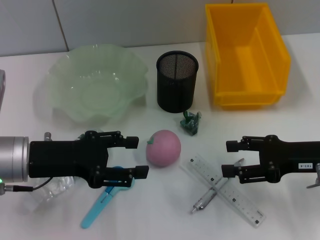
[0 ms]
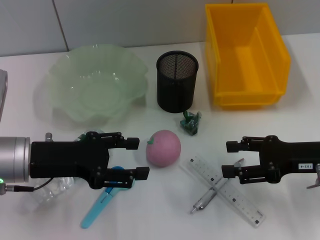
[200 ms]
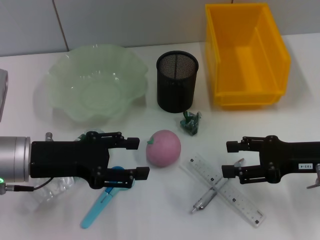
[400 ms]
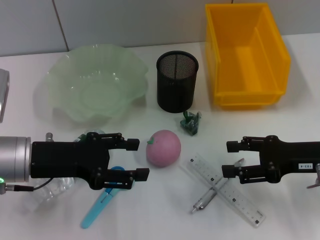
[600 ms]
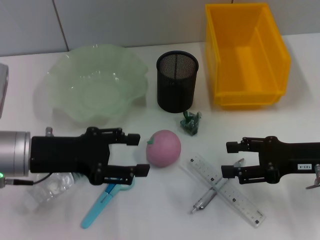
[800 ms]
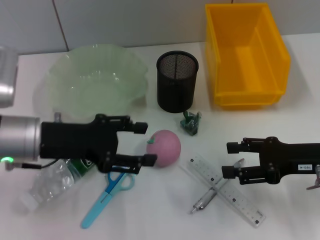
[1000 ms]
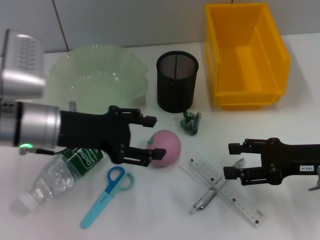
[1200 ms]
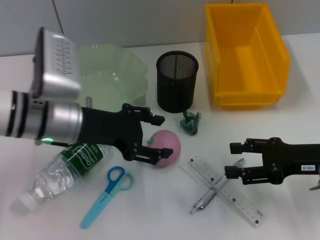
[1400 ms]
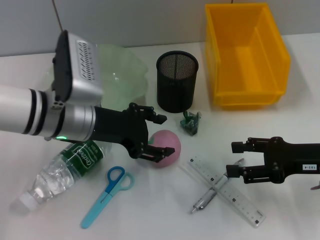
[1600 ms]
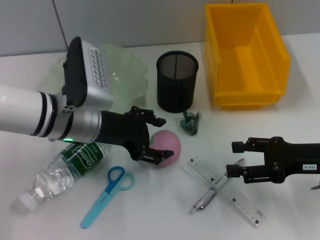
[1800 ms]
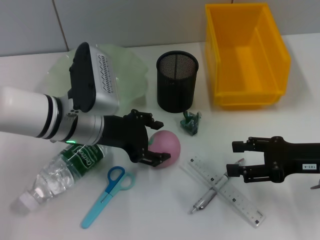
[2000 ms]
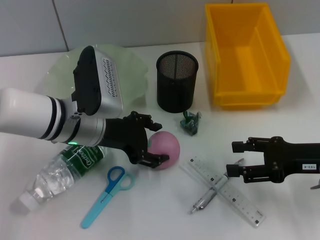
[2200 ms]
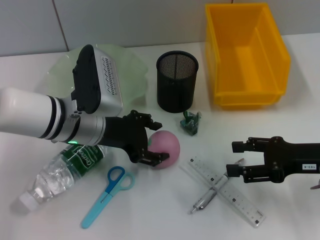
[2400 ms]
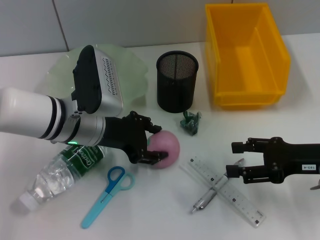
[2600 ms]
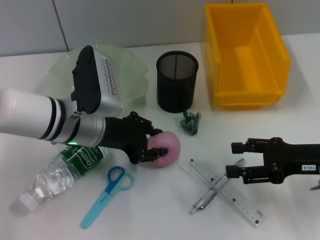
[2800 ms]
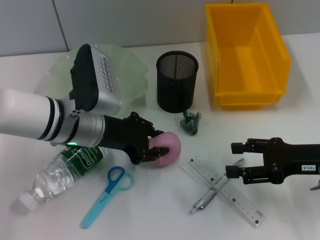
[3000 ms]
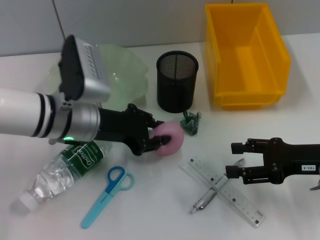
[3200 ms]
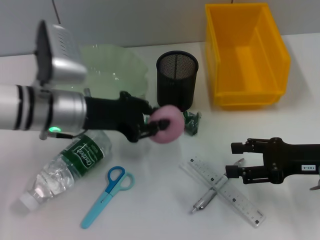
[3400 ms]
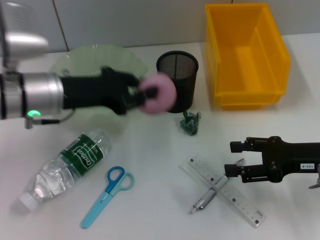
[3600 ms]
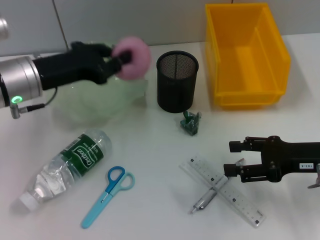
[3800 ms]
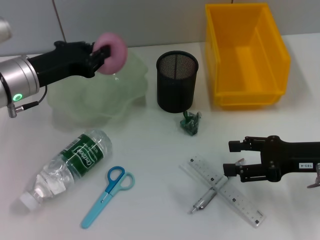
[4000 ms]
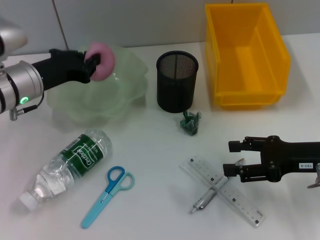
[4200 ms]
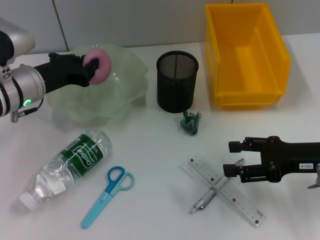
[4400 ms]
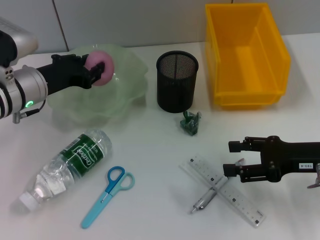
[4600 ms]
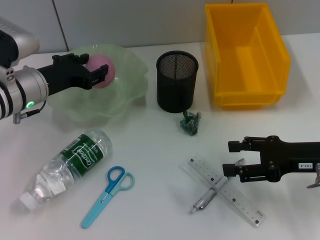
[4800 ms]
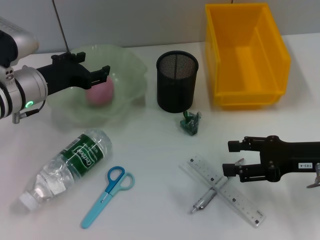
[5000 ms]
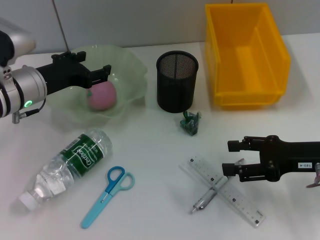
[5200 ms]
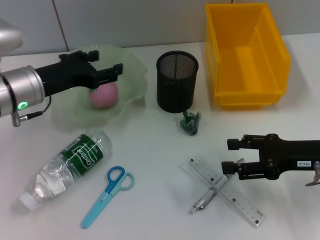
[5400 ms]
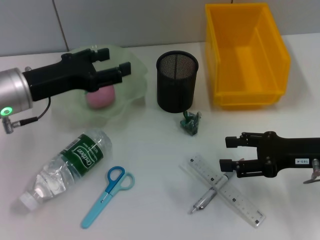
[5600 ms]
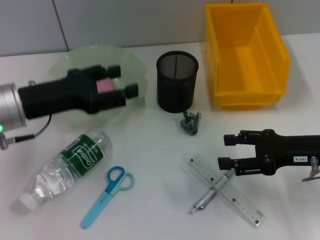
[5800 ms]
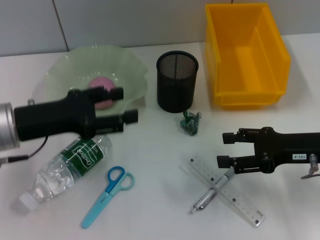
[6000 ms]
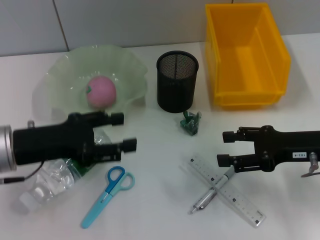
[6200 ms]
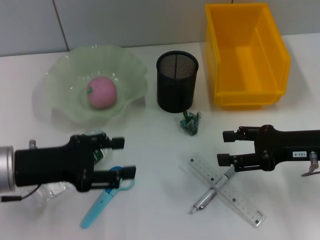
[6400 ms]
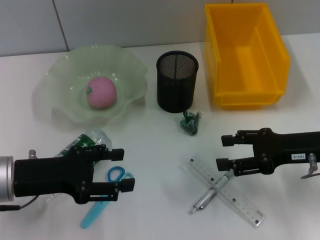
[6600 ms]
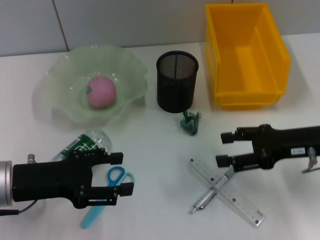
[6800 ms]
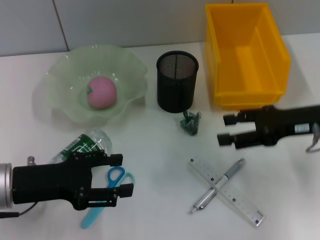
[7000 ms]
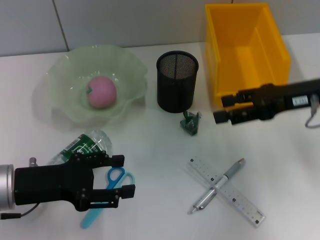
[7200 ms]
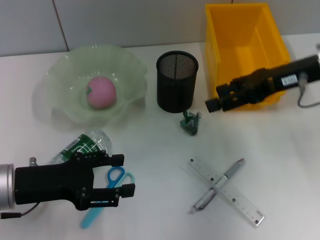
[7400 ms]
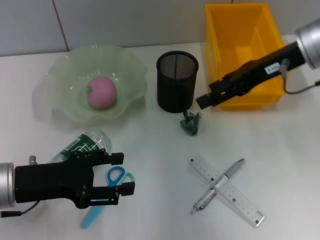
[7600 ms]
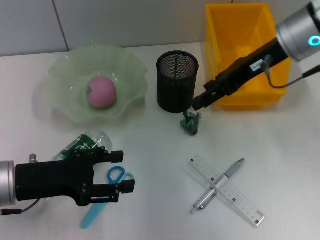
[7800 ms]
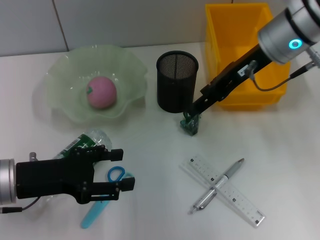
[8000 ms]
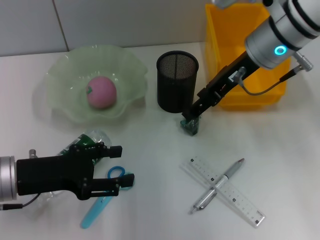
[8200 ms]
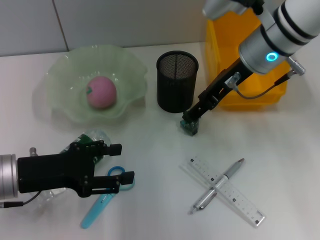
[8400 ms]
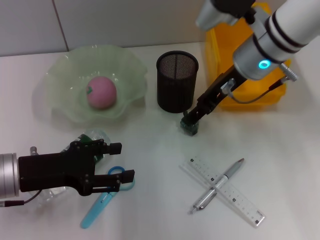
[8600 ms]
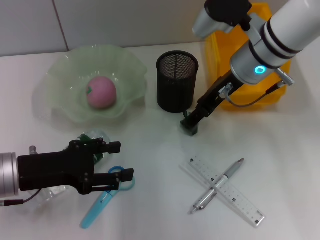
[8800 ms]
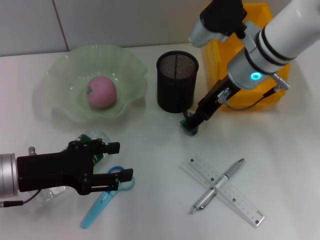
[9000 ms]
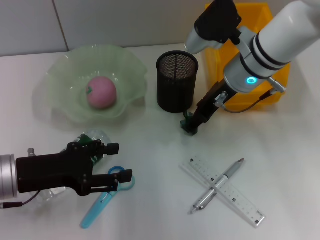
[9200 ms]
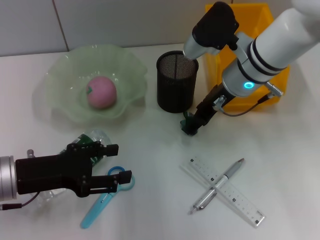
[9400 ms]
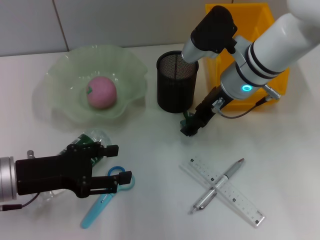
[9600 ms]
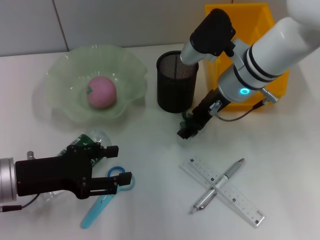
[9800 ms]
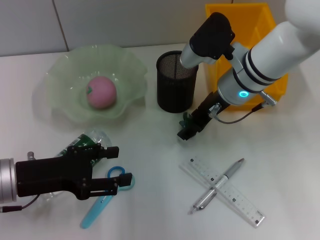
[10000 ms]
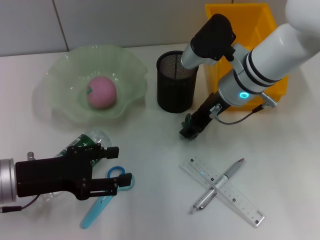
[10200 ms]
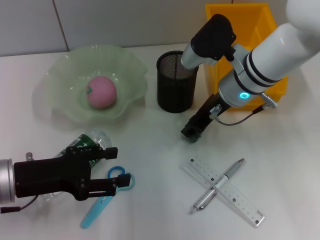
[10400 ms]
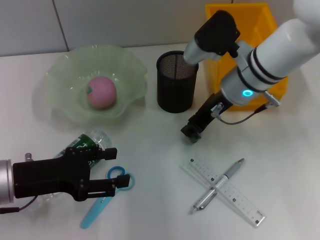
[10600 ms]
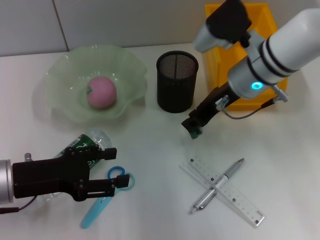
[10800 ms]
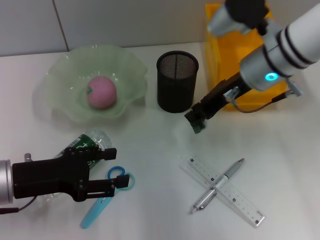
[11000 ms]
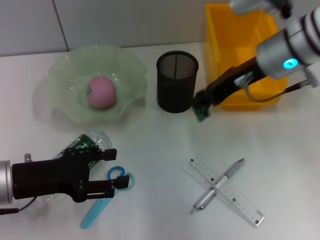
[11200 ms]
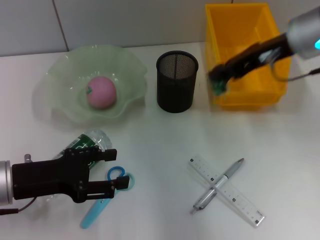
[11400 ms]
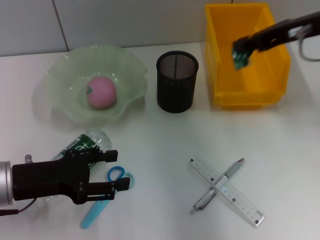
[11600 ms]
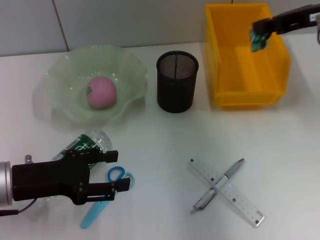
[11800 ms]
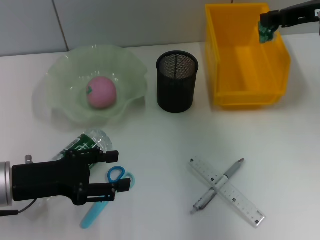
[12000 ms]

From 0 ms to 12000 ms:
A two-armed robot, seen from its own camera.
Step, from 0 ms to 2800 ms: Grab the peach with the left hand.
Step, from 3000 ms to 5000 ms: Place the peach into the fruit bowl with the left hand.
Step, from 5200 ms to 10400 ms: Grab the plastic with the right hand.
From 0 ms to 1600 ms: The left gripper moves to the right and forward, approximately 10 cm.
From 1600 ms to 3000 ms: The left gripper closes up.
From 3000 ms to 4400 ms: The left gripper is displaced to the left by some 10 cm, and closes up.
From 4400 ms to 6000 ms: The left gripper travels backward by about 10 cm, and opens its fingers.
From 6000 ms to 7600 ms: The right gripper is displaced upward, forward and to the left by roughly 20 cm. The left gripper shifts by approximately 5 cm.
From 7600 ms to 9000 ms: The right gripper shifts approximately 10 cm to the left and downward.
From 9000 ms to 10400 ms: The grippers make only small movements.
From 10400 ms to 12000 ms: The right gripper goes some 20 cm to the right and upward, and closes up.

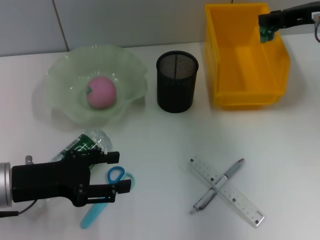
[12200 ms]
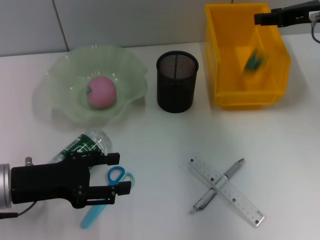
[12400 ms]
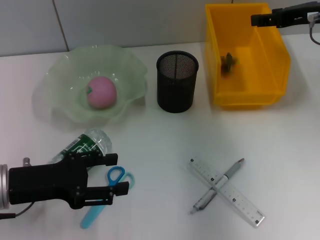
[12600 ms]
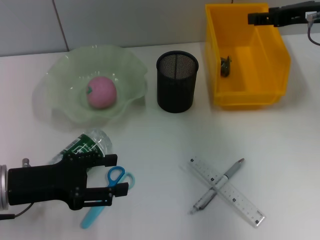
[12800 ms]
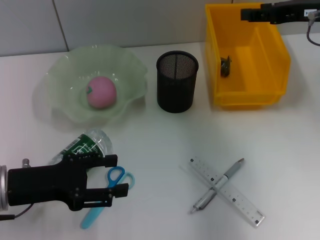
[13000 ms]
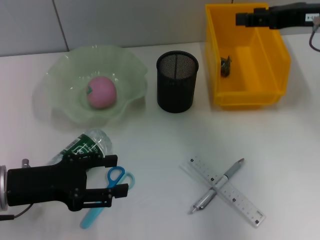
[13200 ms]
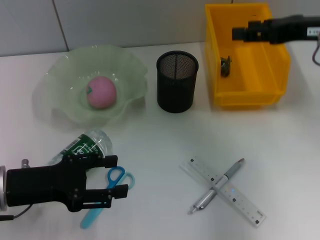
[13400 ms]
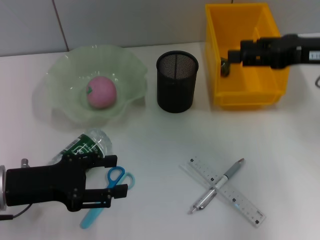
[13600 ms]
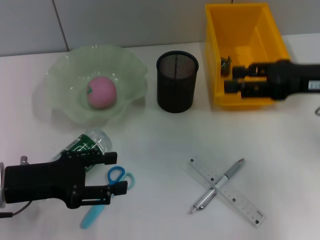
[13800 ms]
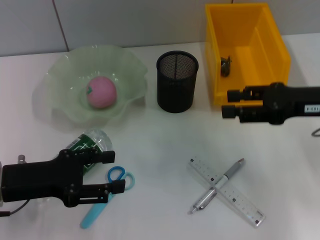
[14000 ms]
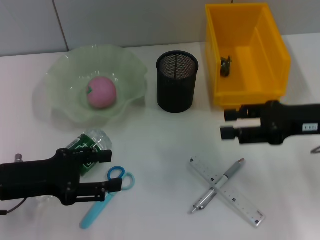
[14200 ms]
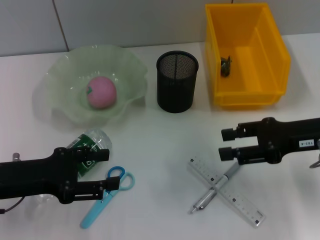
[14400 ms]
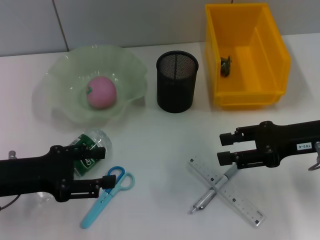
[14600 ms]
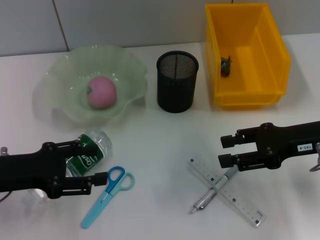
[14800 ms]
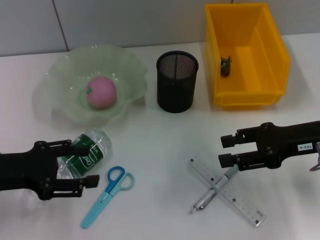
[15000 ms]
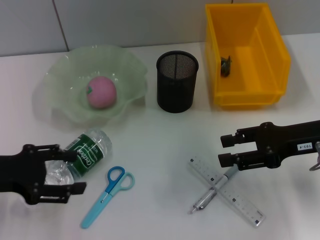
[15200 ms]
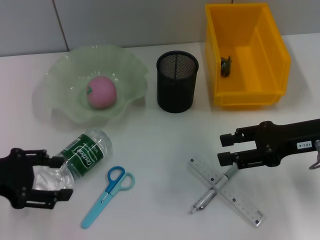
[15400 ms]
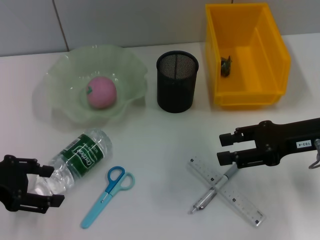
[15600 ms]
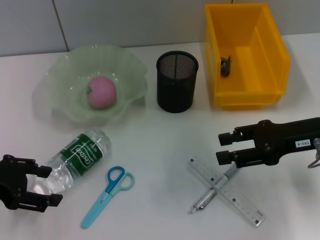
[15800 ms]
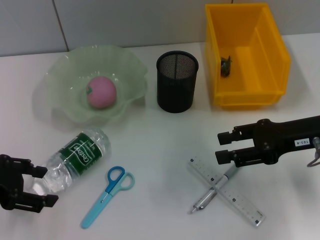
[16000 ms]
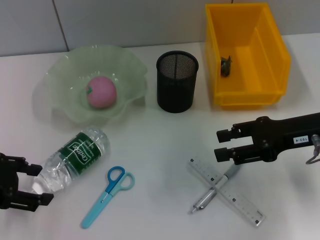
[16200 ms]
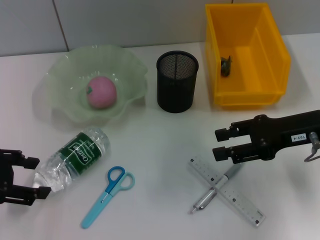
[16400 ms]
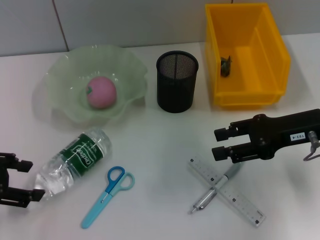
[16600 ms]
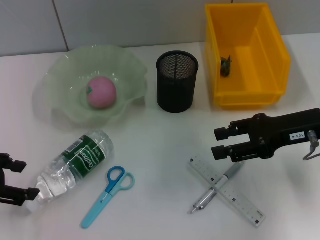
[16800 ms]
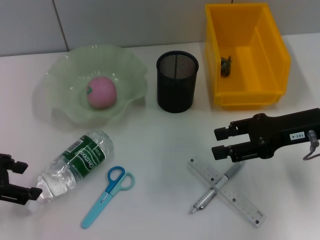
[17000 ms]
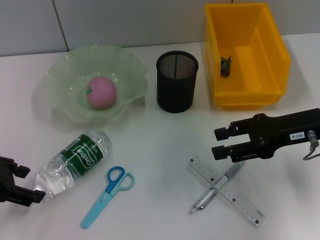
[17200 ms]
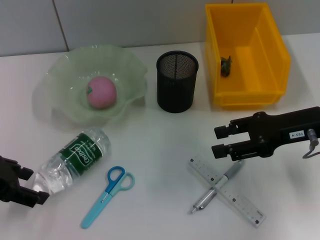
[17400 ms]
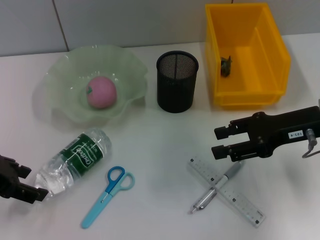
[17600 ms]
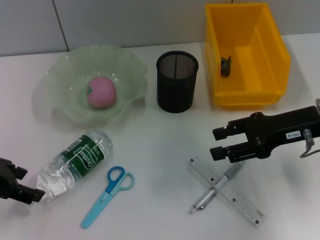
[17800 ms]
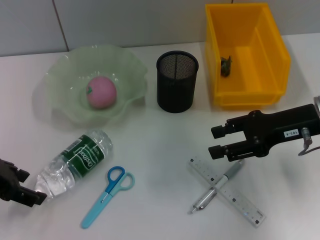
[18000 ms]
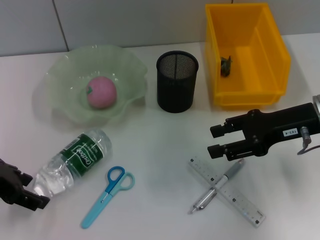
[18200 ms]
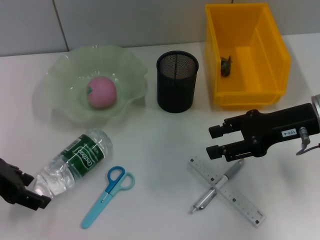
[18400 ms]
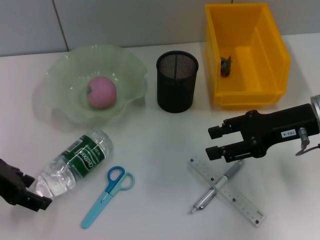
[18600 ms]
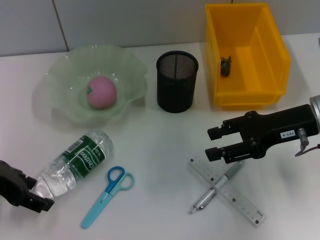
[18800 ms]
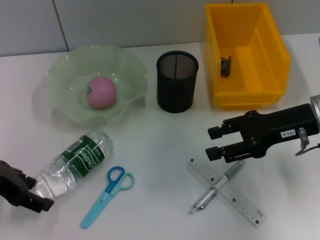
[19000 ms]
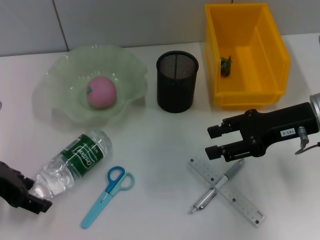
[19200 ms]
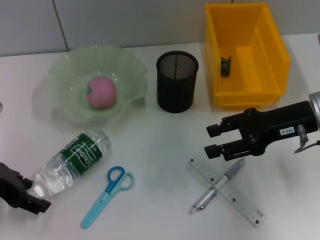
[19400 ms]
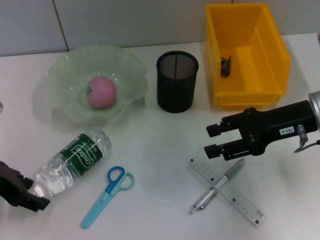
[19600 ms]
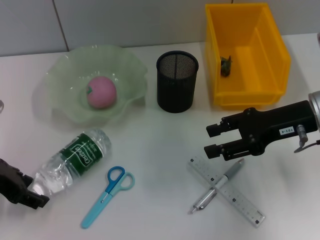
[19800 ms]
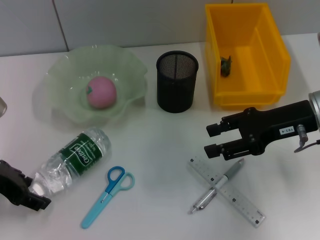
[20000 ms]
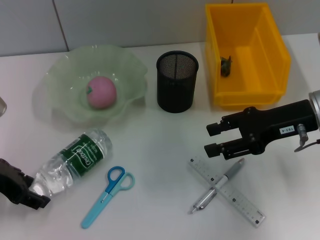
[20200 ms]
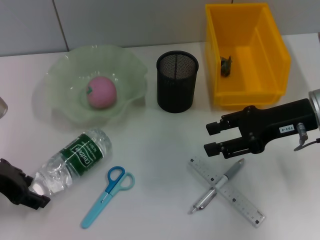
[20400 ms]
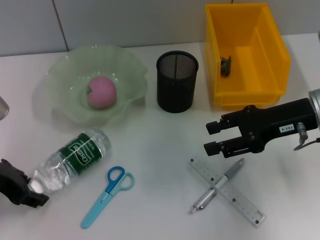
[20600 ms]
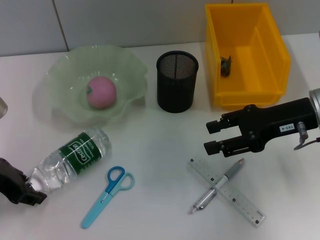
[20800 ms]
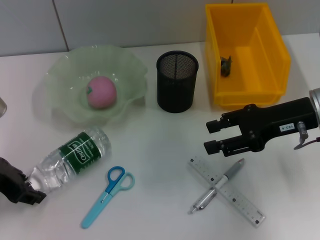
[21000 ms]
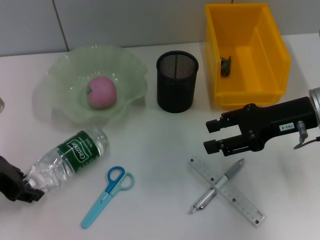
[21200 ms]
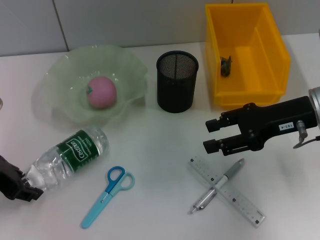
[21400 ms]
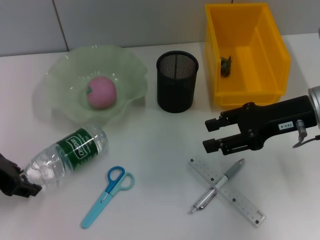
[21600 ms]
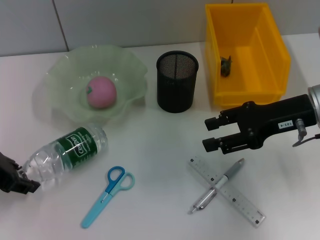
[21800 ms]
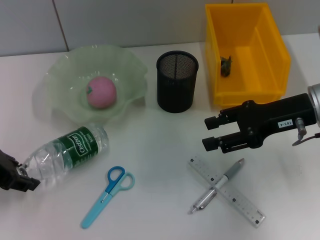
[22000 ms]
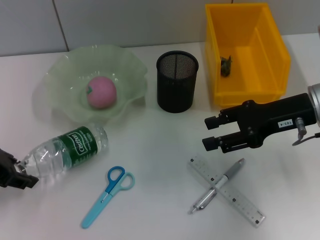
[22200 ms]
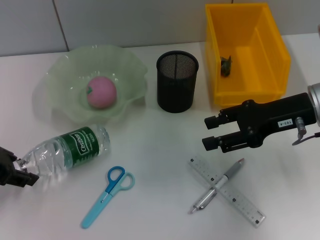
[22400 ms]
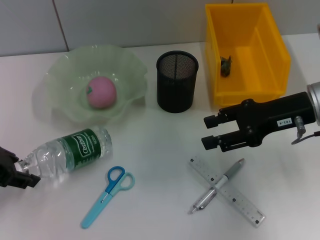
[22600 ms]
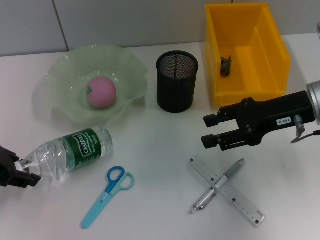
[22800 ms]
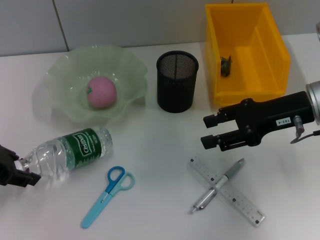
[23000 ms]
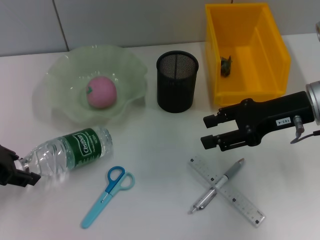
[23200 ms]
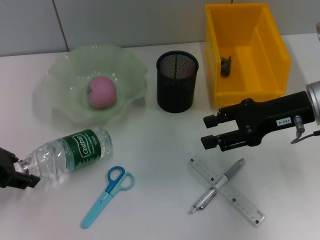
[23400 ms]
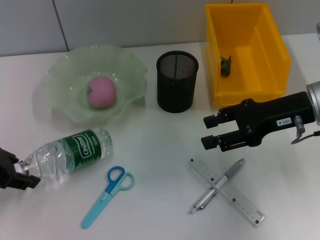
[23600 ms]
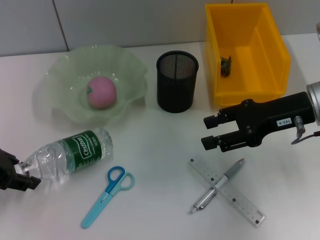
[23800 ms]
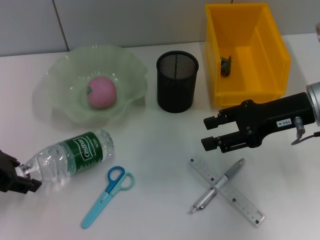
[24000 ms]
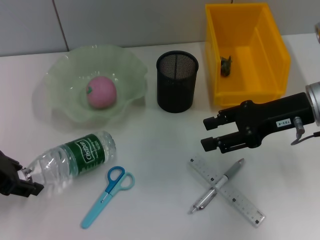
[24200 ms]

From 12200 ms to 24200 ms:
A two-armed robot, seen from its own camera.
From 12200 ms to 13800 ms: The right gripper shifts about 10 cm backward, and opens its fingers.
From 13800 ms to 15200 ms: The right gripper is displaced downward by some 5 cm.
From 16600 ms to 18200 ms: The grippers stay close to where they were, moving slightly.
From 18200 ms to 19800 ms: There are only small adjustments of the grippers.
From 19800 ms to 21200 ms: The left gripper closes up.
From 21200 ms to 22600 ms: There are only small adjustments of the grippers.
From 22600 ms to 24200 ms: Both grippers stay put.
